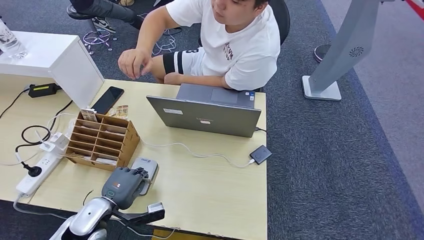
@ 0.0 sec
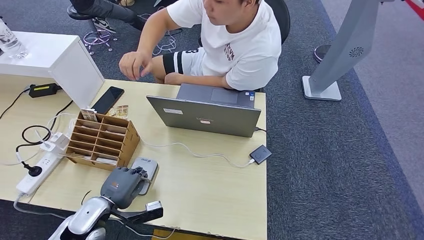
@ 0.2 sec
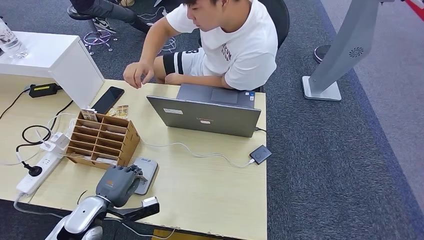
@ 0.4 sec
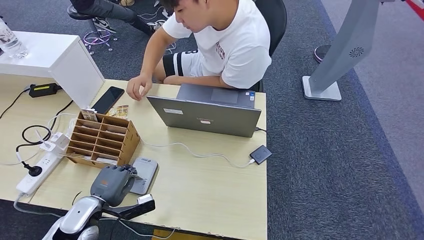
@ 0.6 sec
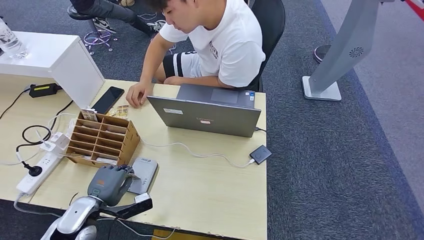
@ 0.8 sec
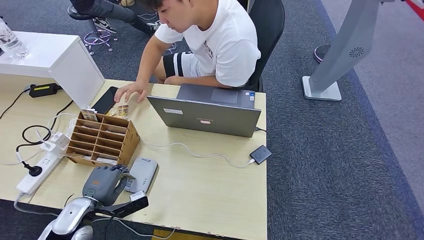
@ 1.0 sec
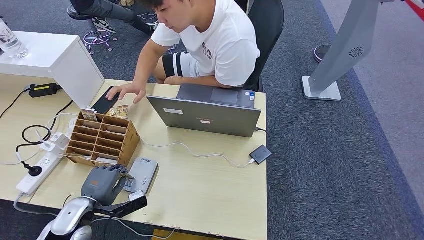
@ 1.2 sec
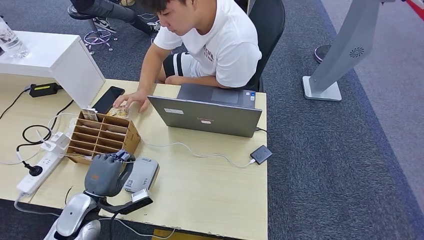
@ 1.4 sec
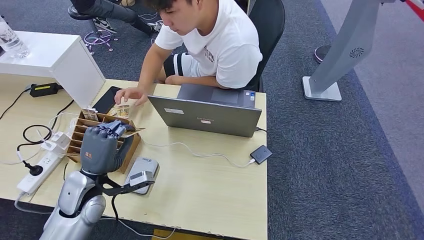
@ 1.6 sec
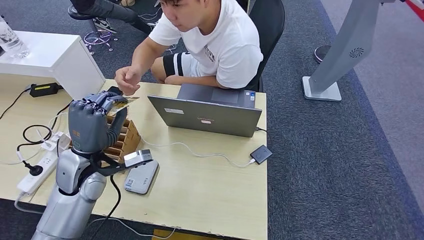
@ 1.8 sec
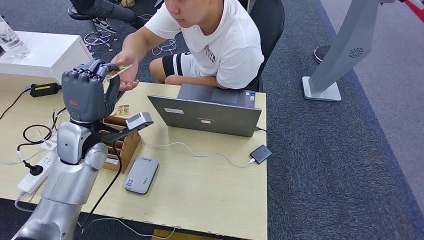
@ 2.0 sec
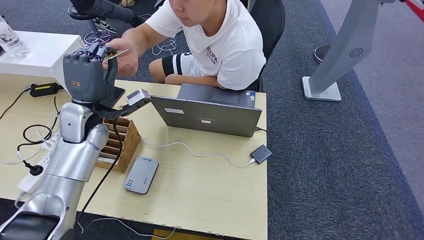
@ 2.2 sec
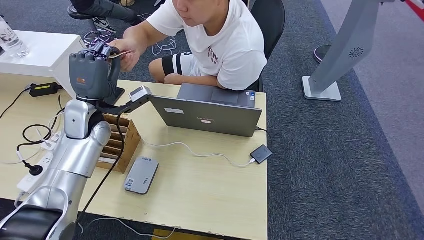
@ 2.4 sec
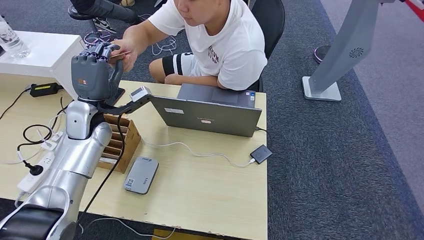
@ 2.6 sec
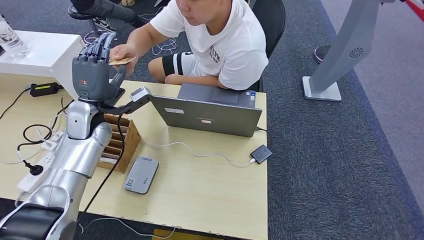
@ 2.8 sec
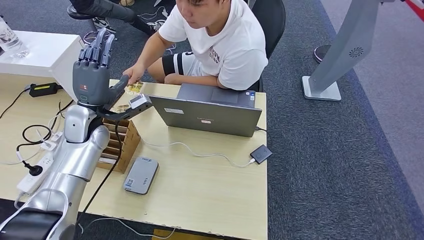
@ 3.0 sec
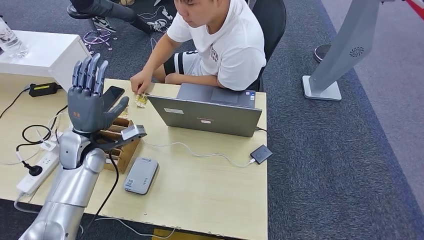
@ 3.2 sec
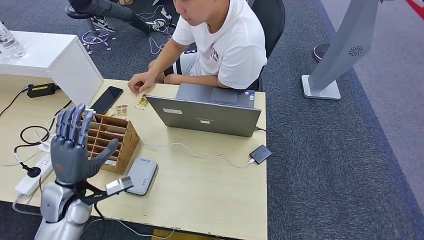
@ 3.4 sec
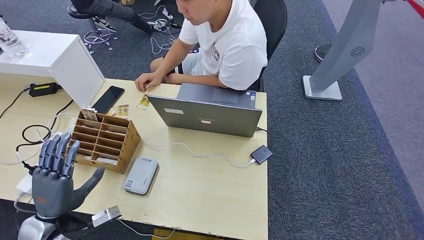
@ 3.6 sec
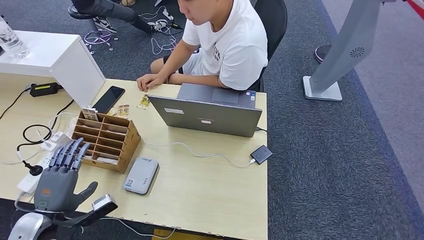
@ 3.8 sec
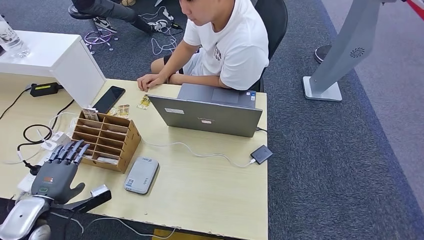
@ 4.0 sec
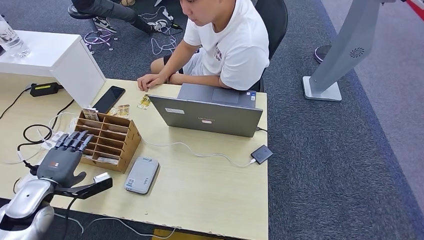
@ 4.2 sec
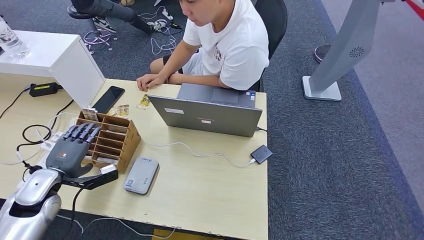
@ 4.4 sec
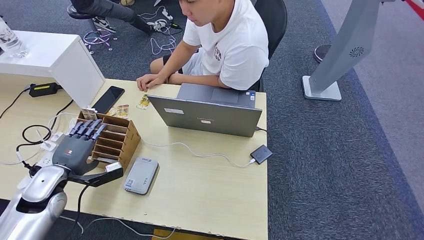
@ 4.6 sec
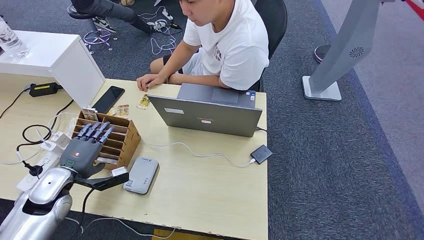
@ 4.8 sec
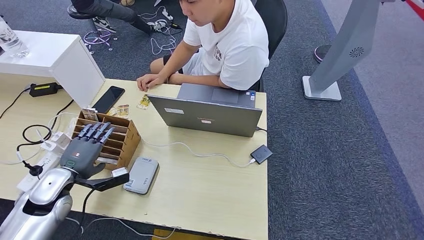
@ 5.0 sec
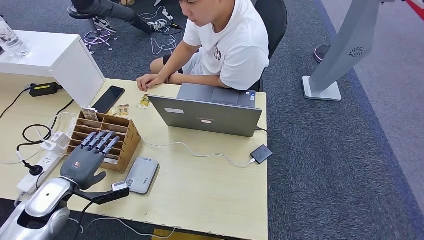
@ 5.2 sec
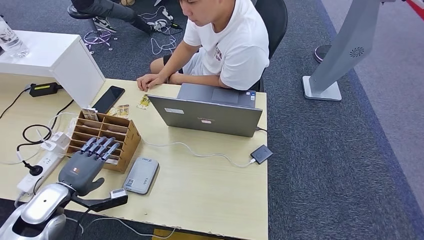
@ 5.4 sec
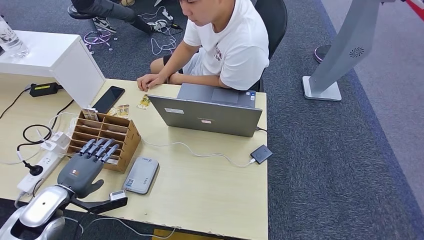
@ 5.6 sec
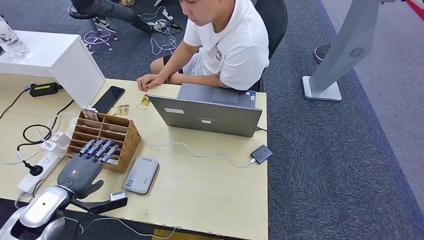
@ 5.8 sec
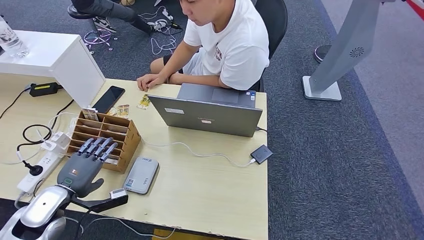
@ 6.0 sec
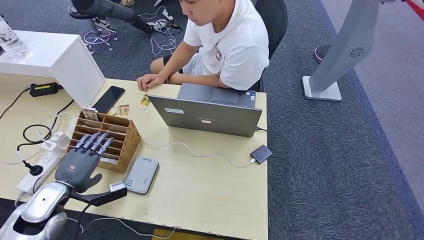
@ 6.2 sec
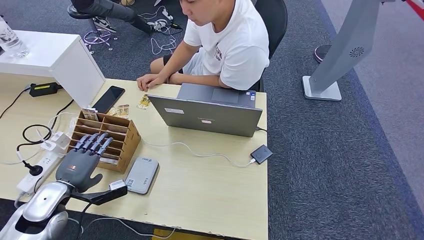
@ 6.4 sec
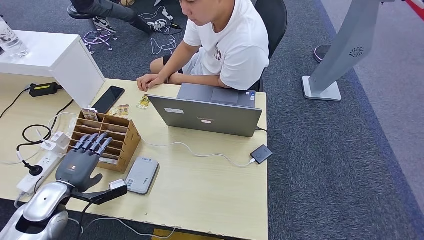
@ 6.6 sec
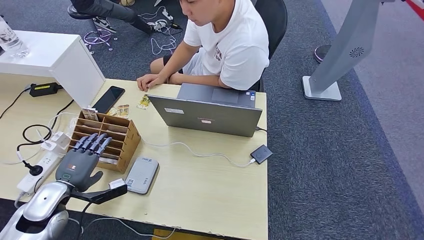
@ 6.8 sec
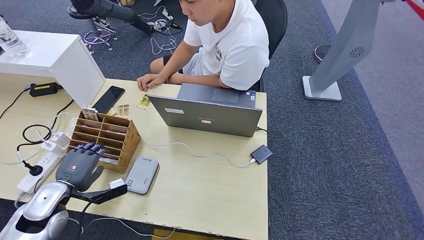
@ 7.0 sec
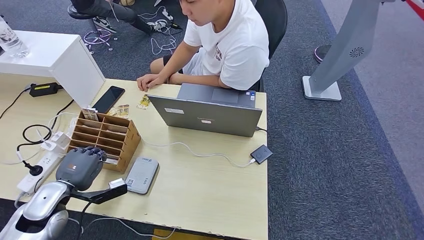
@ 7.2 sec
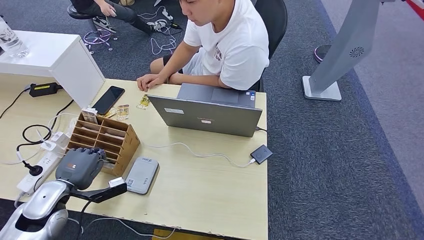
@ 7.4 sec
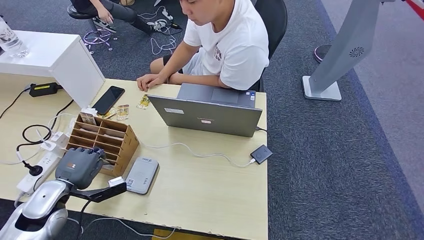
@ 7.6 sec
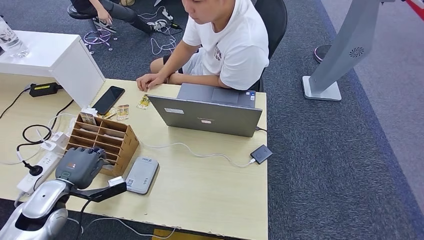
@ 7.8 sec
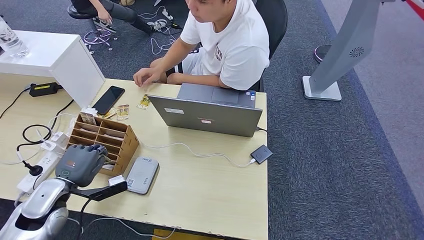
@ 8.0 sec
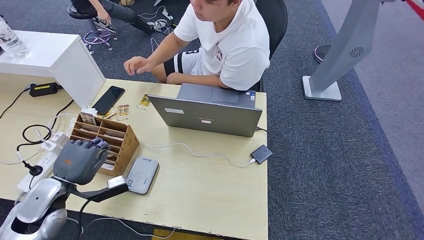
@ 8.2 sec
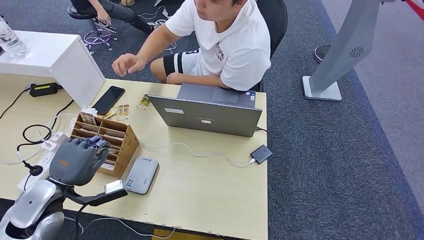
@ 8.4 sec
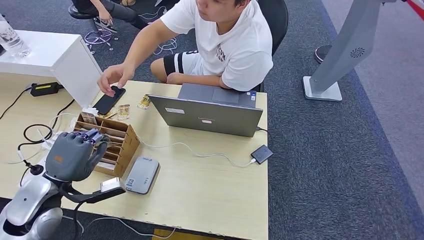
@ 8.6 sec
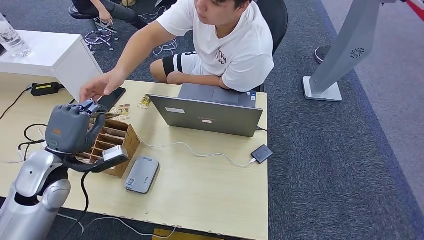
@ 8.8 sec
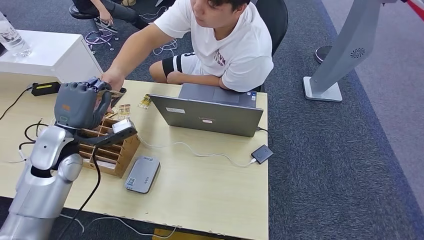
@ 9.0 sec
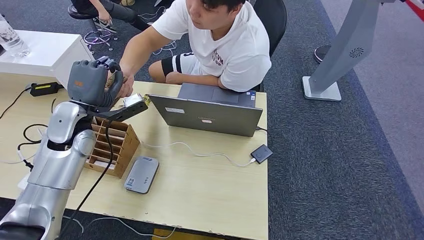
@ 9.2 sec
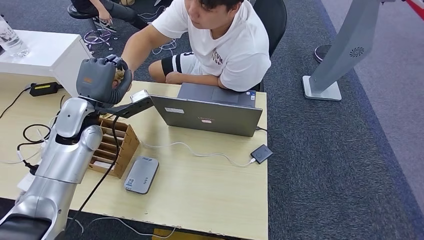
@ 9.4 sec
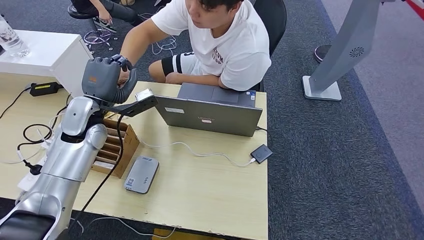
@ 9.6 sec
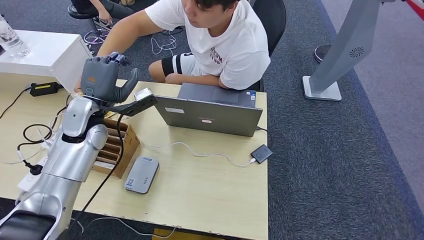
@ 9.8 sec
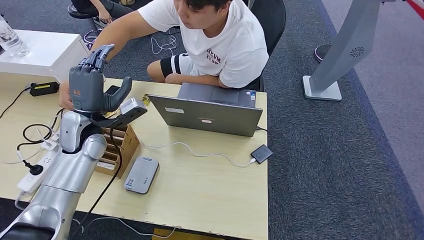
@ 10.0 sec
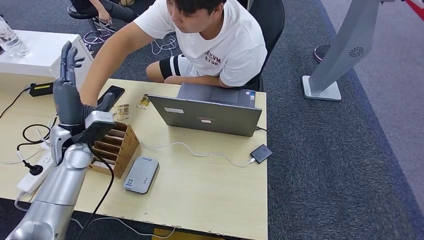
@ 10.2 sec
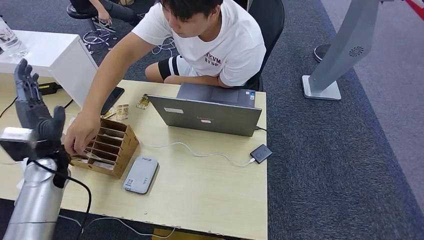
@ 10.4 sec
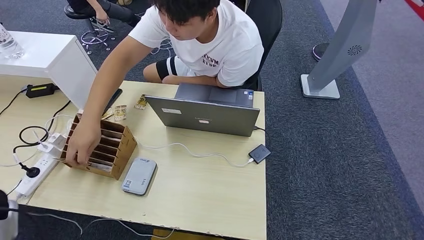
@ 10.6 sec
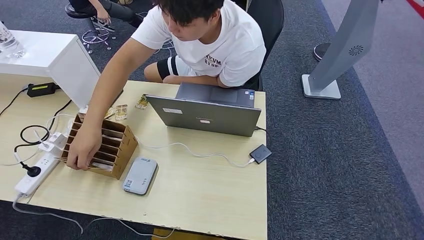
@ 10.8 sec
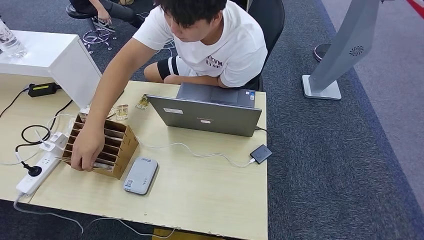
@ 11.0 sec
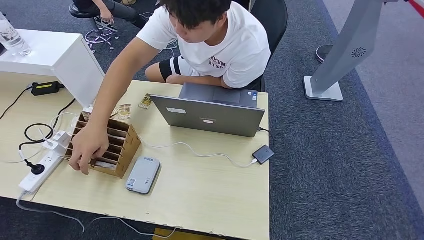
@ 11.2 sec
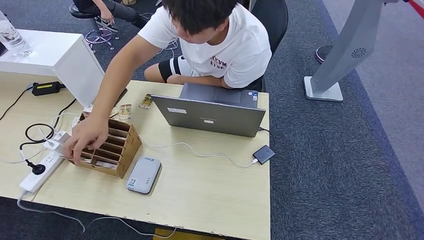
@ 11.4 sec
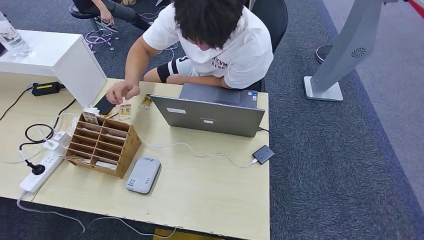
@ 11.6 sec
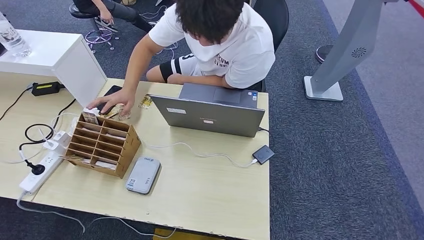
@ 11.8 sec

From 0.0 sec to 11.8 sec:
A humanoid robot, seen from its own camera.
Step, from 0.4 sec to 4.2 sec: Hand the ID card to the person.
Step, from 4.4 sec to 7.2 sec: Pick up the room key from the key card box.
Step, from 7.6 sec to 11.8 sec: Hand the room key to the person.
From 1.4 sec to 3.0 sec: The left hand travels forward and upward by about 25 cm.
From 3.0 sec to 4.4 sec: The left hand goes some 20 cm backward, to the left and downward.
From 4.4 sec to 6.0 sec: The left hand ends up roughly 5 cm from where it was.
From 6.0 sec to 7.4 sec: The hands make only small movements.
